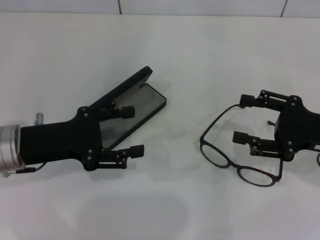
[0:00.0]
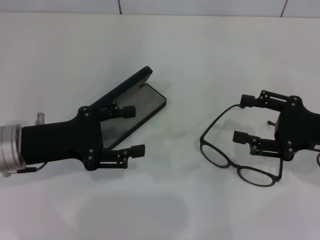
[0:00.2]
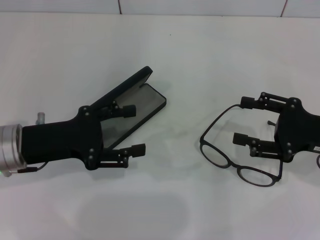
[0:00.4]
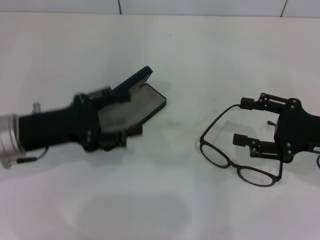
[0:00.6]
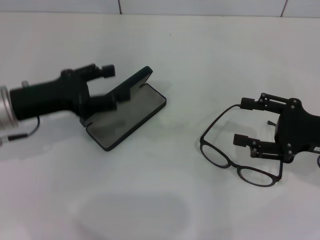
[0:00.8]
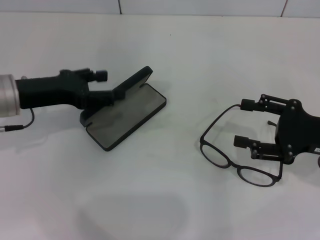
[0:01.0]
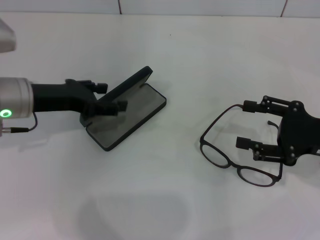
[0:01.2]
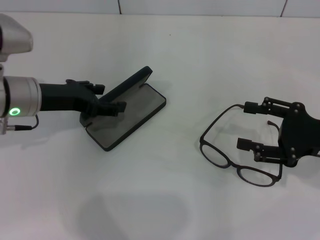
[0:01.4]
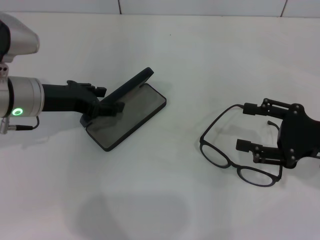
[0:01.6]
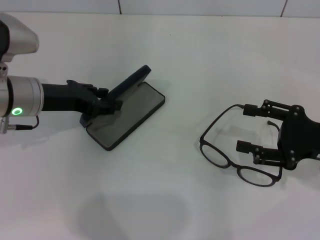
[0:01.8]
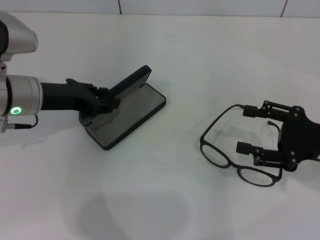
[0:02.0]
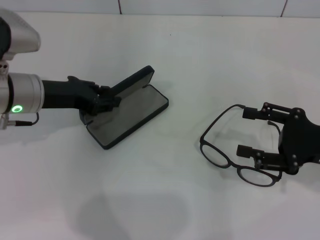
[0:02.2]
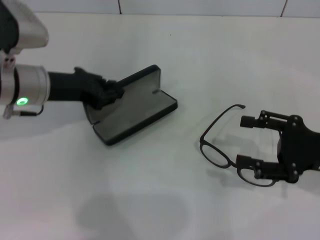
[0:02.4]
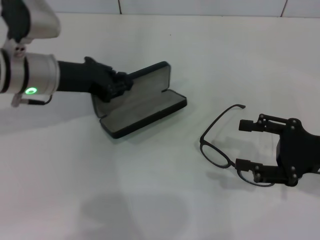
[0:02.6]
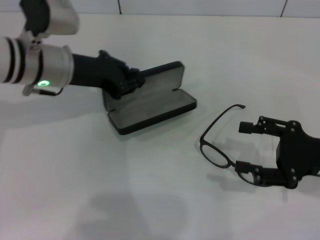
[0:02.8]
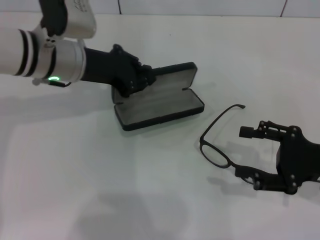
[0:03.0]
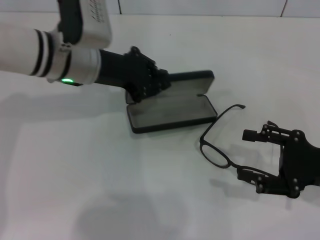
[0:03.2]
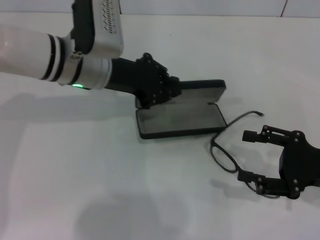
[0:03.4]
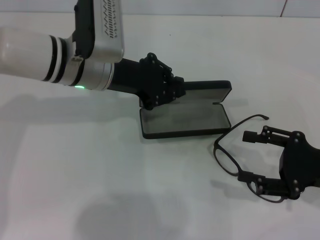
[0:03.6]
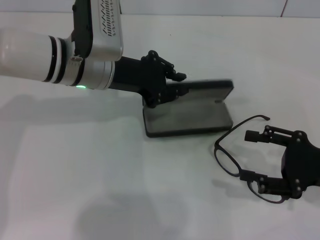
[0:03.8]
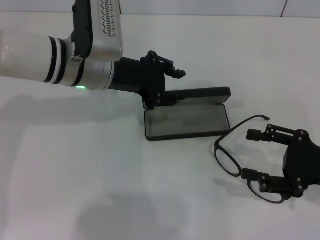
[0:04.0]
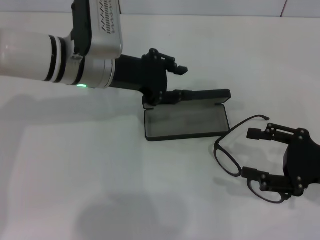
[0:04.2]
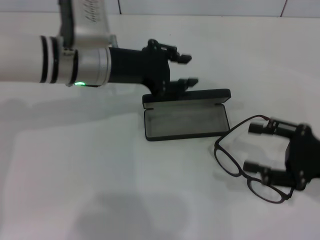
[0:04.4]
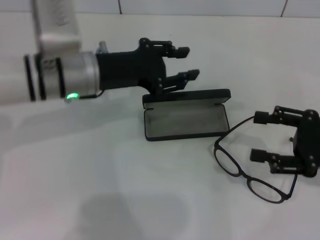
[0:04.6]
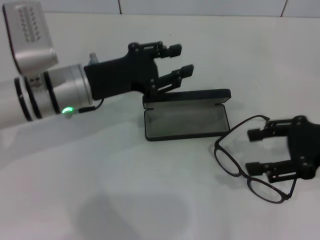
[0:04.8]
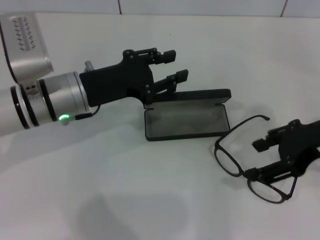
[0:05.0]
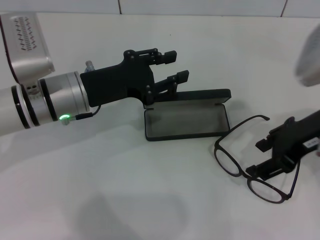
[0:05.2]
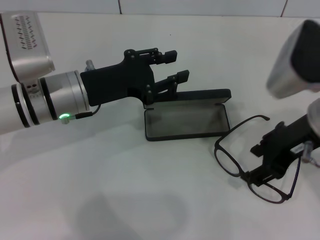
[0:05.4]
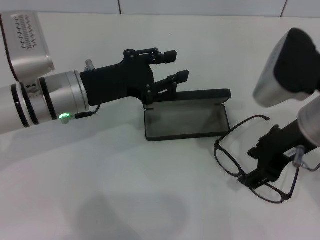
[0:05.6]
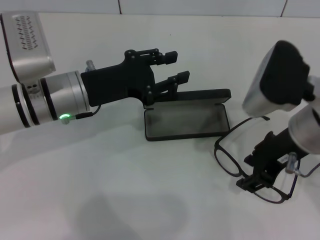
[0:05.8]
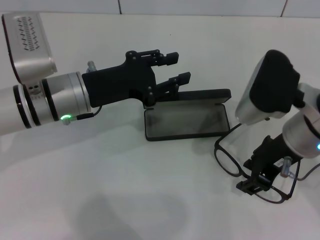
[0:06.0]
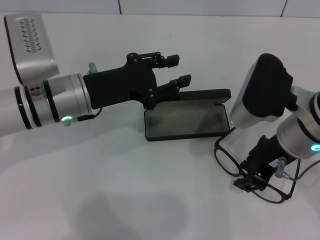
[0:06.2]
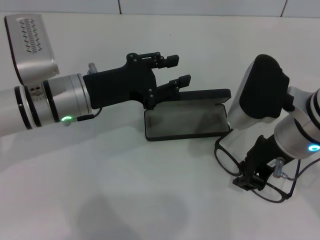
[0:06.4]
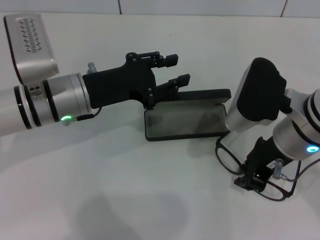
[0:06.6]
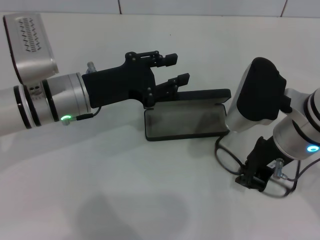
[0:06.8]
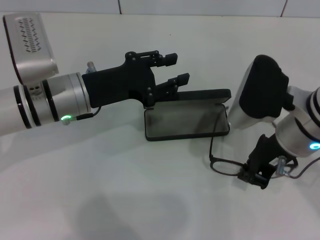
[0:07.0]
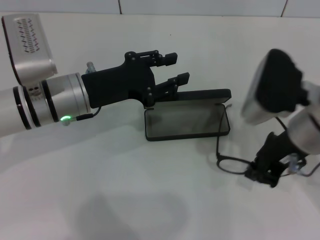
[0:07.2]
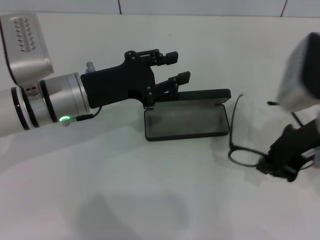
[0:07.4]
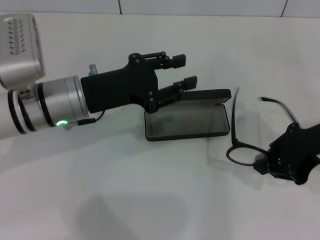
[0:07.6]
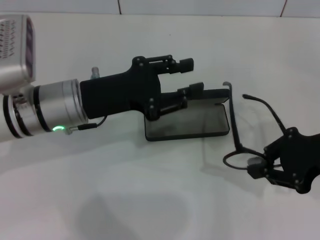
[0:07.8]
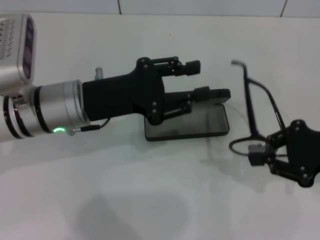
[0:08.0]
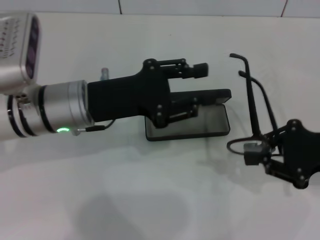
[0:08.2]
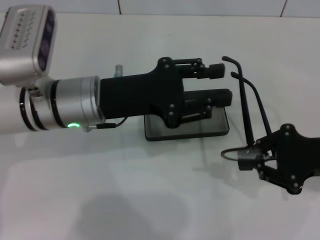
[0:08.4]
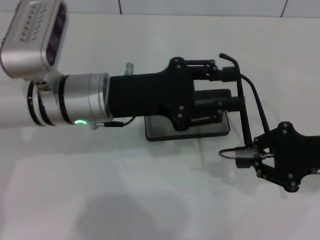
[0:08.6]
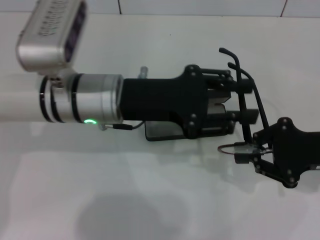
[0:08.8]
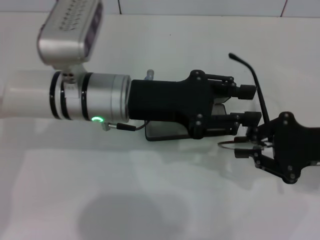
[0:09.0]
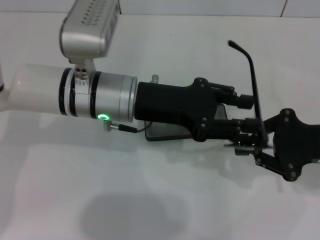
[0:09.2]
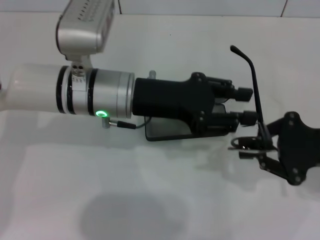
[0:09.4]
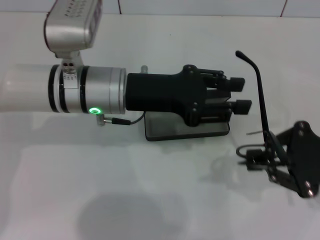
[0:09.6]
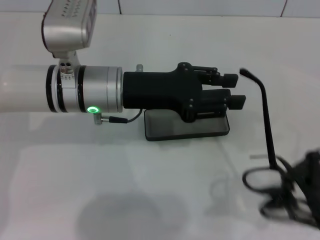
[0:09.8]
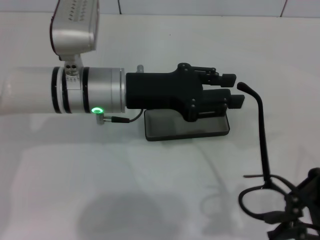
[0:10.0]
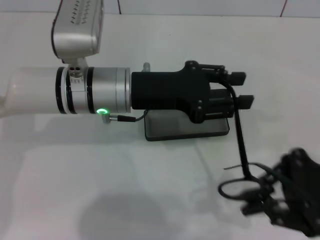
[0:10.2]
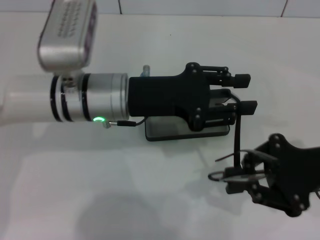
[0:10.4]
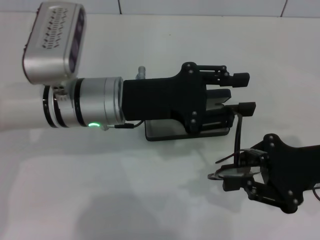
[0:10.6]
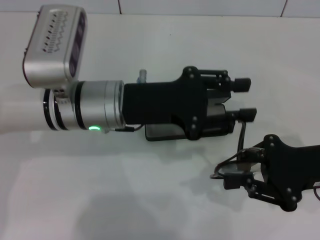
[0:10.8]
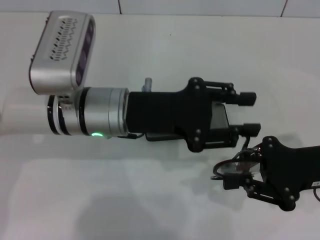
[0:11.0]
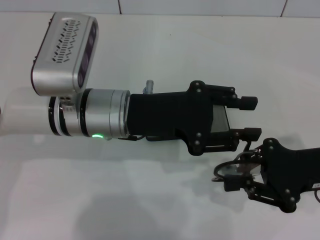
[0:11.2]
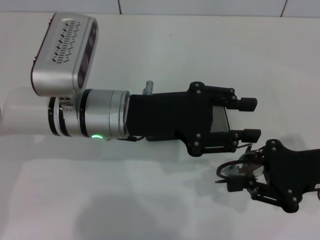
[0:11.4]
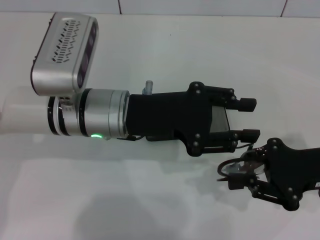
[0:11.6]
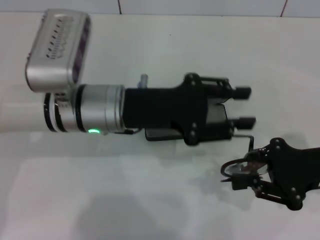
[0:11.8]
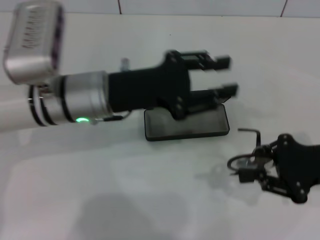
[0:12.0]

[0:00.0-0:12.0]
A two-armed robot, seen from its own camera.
Step, 0:00.0 to 0:02.2: Grab the glasses case with your left hand.
Step, 0:02.4 to 0:03.8: Place the glasses case in the center of the table with your left hand.
Step, 0:04.0 to 0:06.8: Grab the eyeglass frame with your right hand.
Step, 0:07.0 to 0:11.4: Fold the frame with your left hand.
0:00.0 to 0:01.6: The left gripper heads forward, covering about 10 cm.
0:01.6 to 0:03.0: The left gripper moves to the right, approximately 5 cm, and closes its fingers.
0:03.0 to 0:04.4: The left gripper opens its fingers.
0:04.4 to 0:06.0: The right gripper shifts approximately 15 cm to the left and upward; the left gripper changes place by some 5 cm.
0:06.0 to 0:07.6: The right gripper goes about 5 cm to the right, and closes up.
0:07.6 to 0:09.0: The right gripper travels downward by about 5 cm. Meanwhile the left gripper goes some 5 cm to the right.

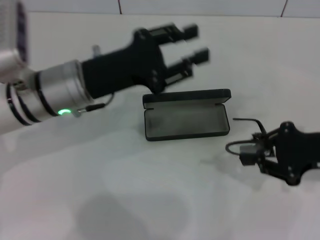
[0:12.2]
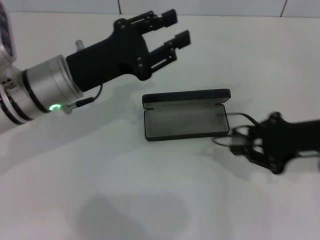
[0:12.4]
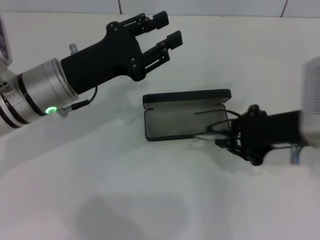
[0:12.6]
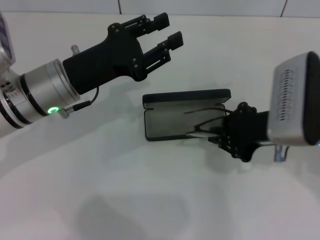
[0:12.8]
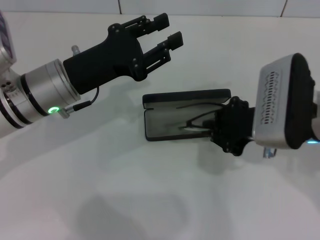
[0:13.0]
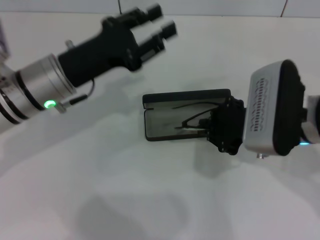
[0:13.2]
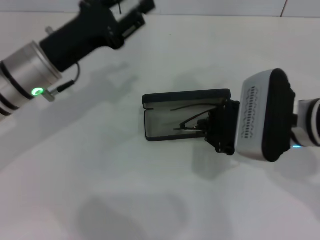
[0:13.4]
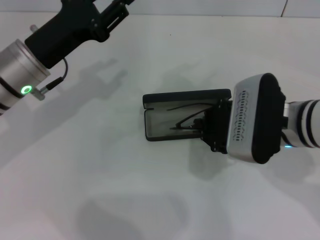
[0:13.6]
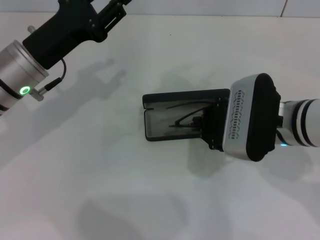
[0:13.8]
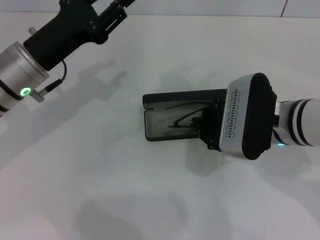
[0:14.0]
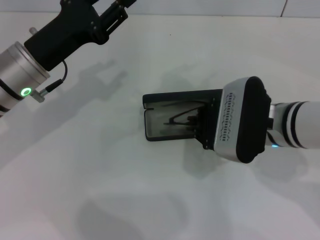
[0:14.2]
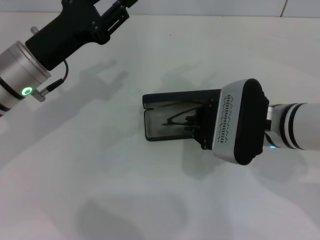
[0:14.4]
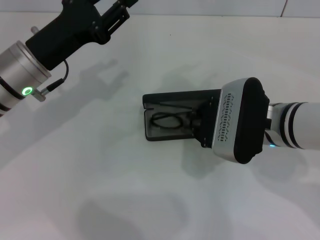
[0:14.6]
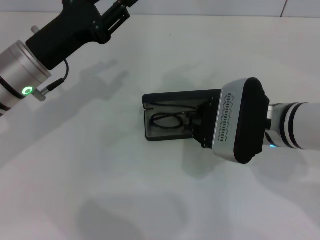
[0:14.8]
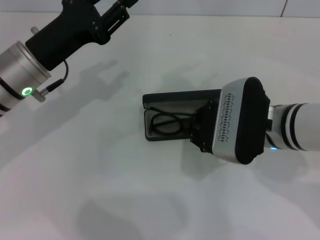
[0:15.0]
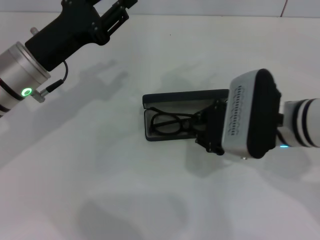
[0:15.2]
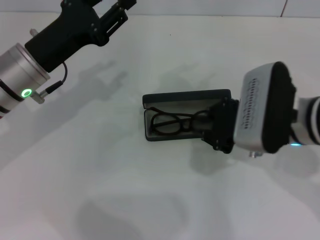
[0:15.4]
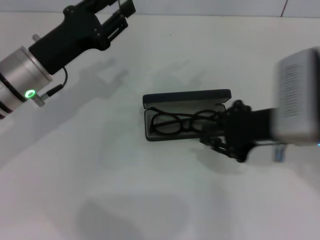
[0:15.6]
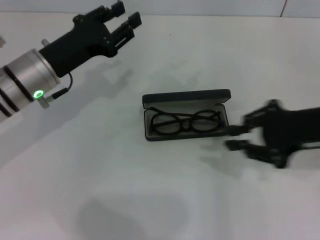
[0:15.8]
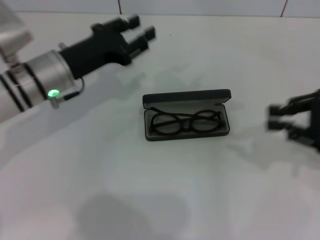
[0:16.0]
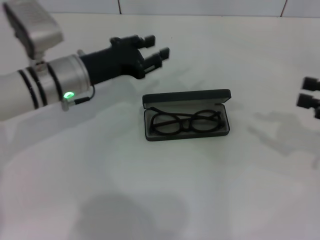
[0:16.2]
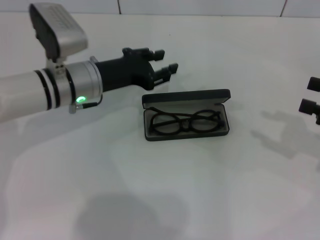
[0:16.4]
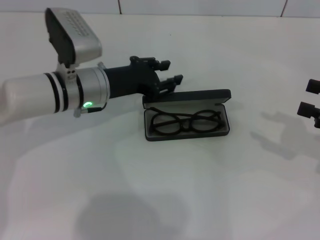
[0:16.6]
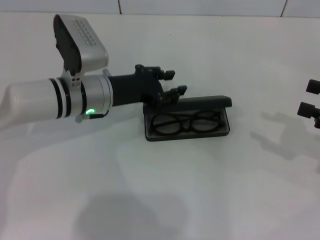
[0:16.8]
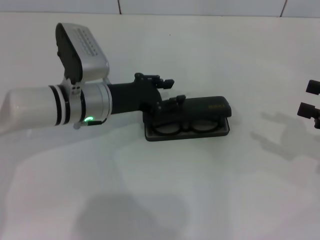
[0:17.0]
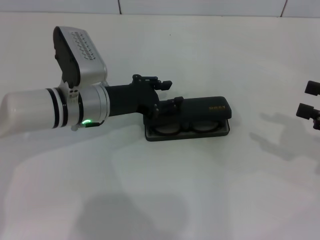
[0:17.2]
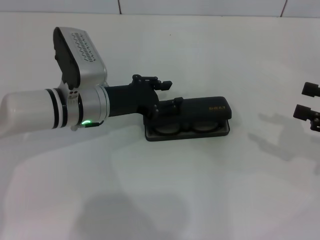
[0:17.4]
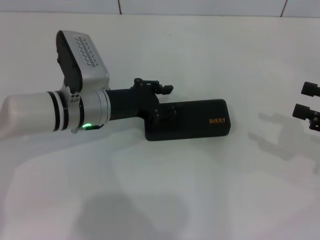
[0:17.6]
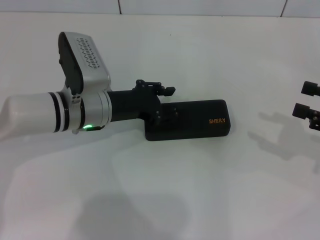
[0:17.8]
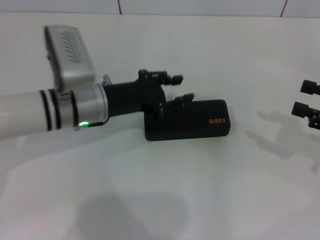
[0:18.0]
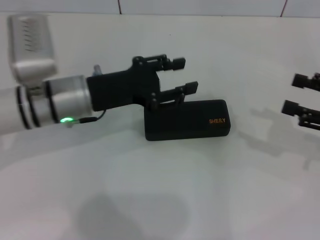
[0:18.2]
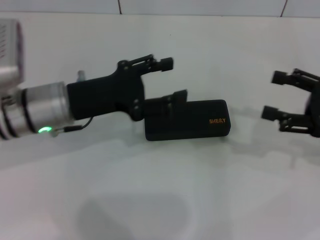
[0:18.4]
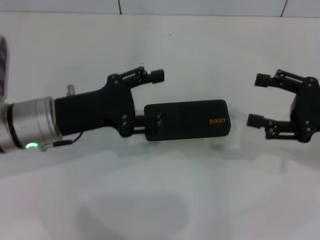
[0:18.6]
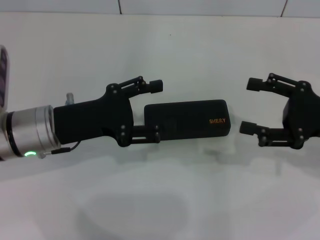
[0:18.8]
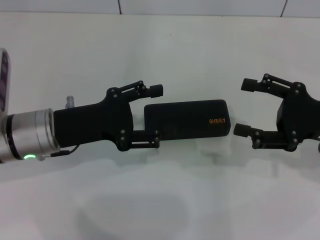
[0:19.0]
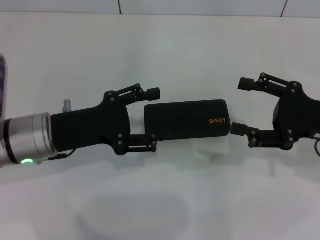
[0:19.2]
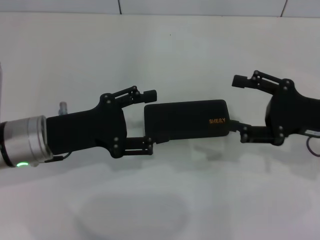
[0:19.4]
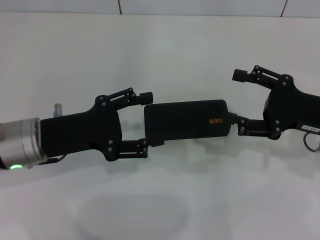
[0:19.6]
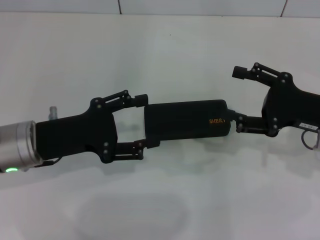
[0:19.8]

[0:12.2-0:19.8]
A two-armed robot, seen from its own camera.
Step, 0:12.2 to 0:14.8: Put the glasses into the case with your right hand.
Step, 0:15.0 to 0:17.8: Close the glasses case with your left hand.
0:12.2 to 0:13.8: The right gripper heads to the left, covering some 15 cm. Meanwhile the left gripper travels to the left by approximately 5 cm.
0:13.8 to 0:15.2: Both grippers stay put.
0:15.2 to 0:16.8: The left gripper shifts about 5 cm to the right, while the right gripper goes approximately 20 cm to the right, and opens up.
0:18.2 to 0:19.8: The left gripper heads backward and to the left, covering some 10 cm, and opens, while the right gripper heads to the left, covering about 5 cm.
